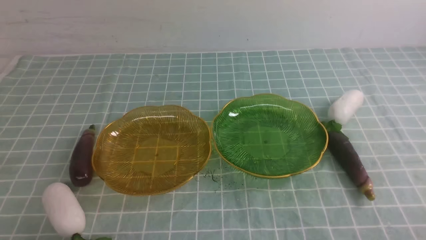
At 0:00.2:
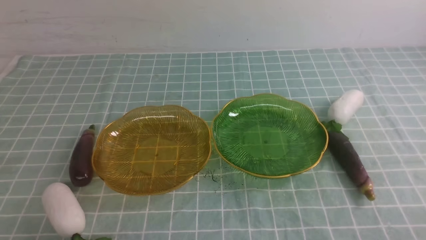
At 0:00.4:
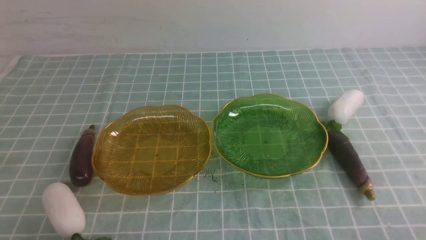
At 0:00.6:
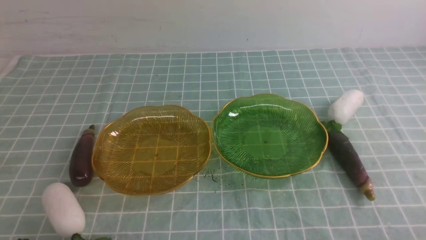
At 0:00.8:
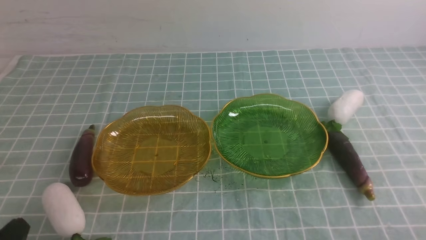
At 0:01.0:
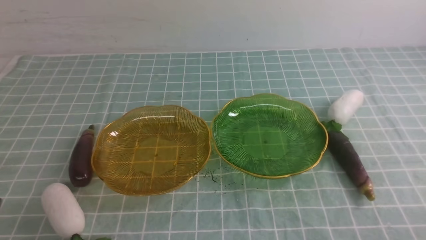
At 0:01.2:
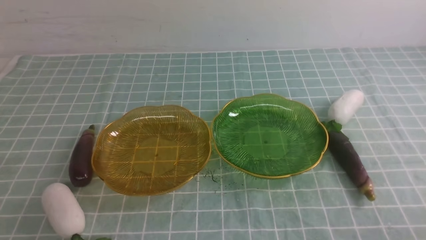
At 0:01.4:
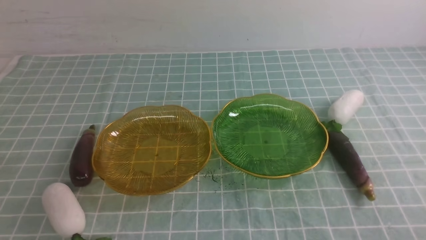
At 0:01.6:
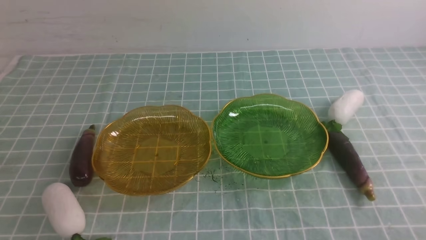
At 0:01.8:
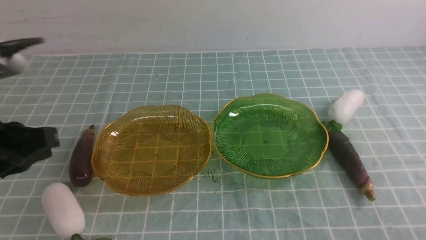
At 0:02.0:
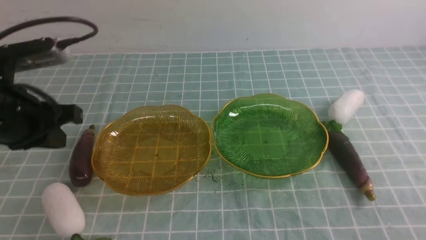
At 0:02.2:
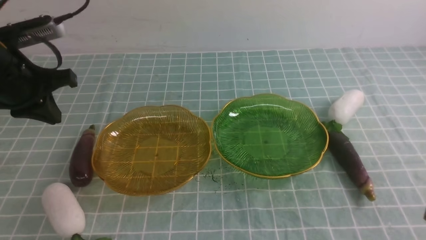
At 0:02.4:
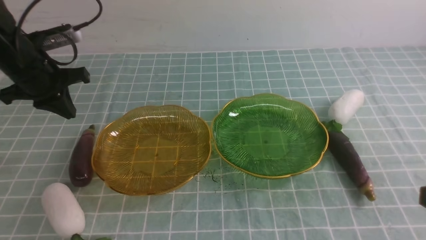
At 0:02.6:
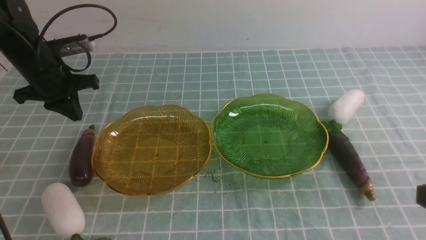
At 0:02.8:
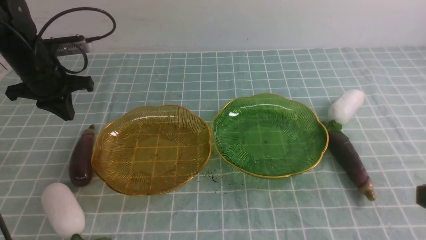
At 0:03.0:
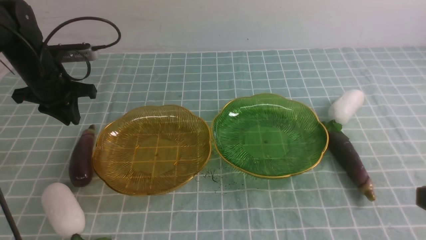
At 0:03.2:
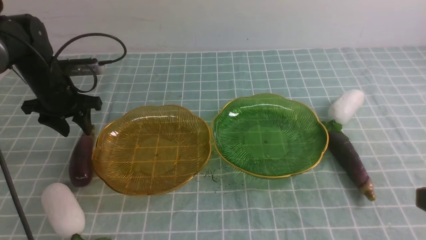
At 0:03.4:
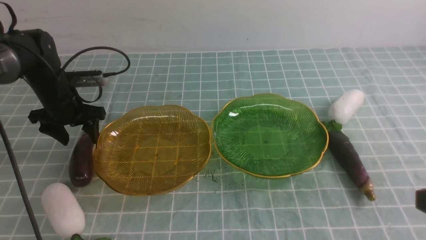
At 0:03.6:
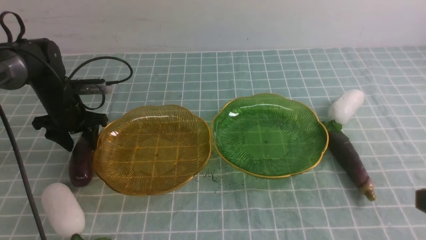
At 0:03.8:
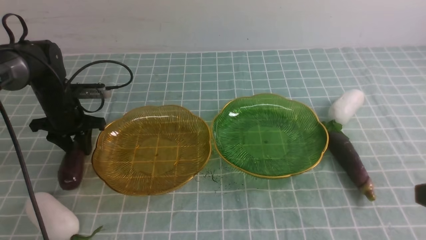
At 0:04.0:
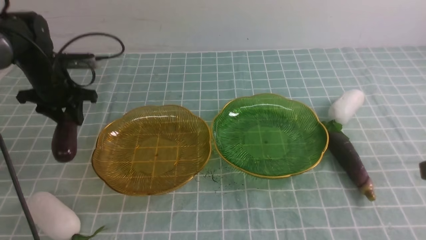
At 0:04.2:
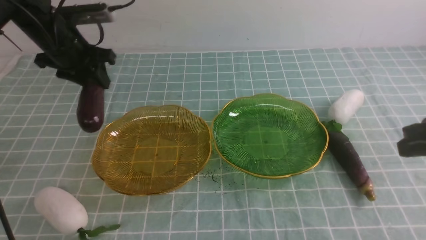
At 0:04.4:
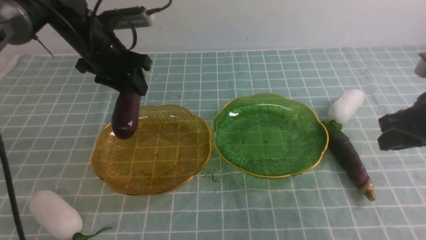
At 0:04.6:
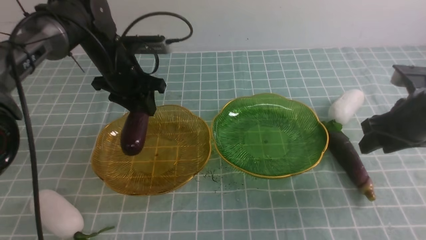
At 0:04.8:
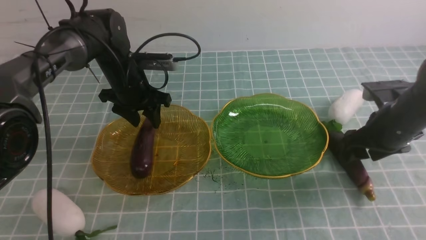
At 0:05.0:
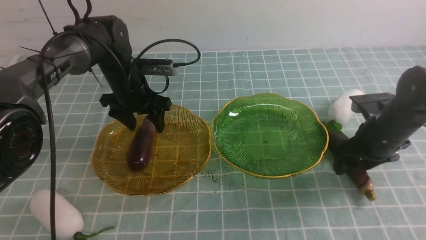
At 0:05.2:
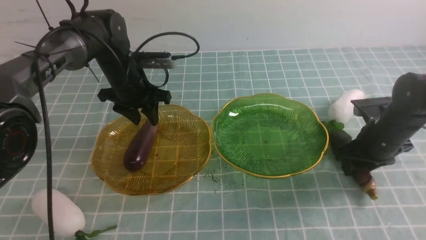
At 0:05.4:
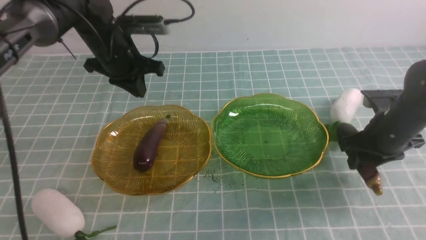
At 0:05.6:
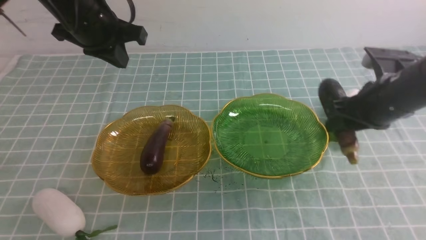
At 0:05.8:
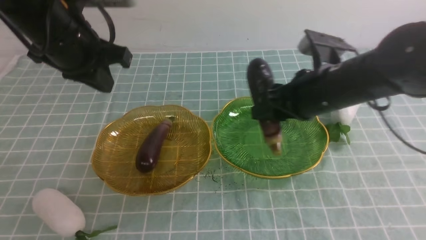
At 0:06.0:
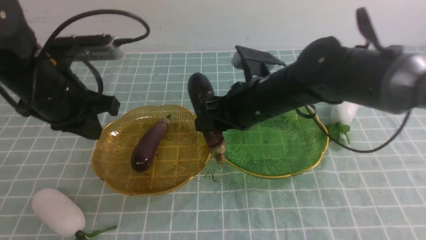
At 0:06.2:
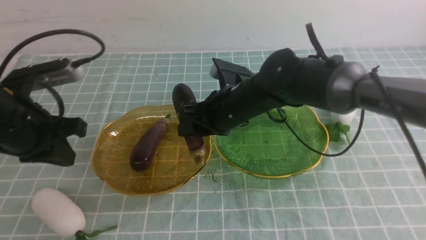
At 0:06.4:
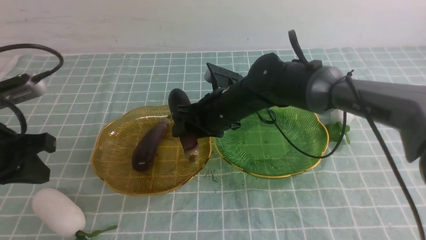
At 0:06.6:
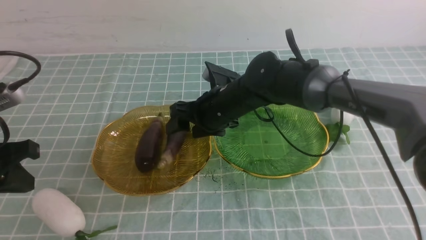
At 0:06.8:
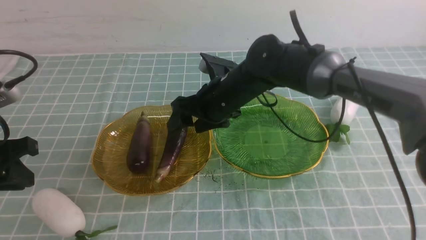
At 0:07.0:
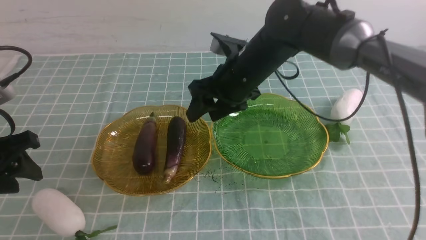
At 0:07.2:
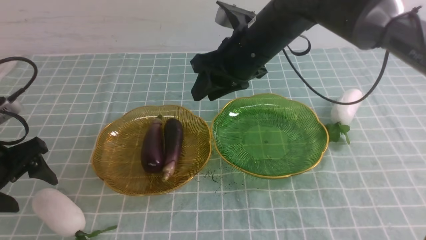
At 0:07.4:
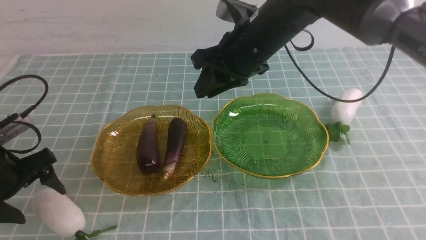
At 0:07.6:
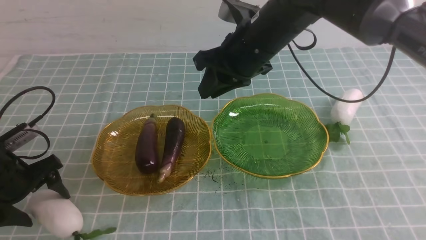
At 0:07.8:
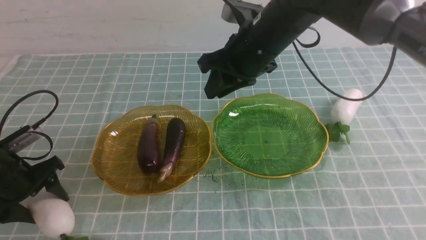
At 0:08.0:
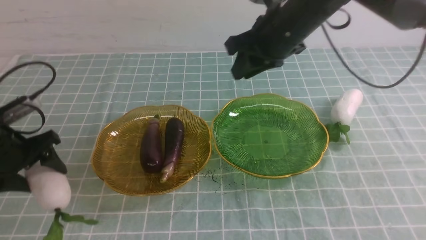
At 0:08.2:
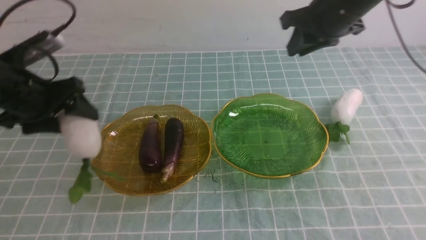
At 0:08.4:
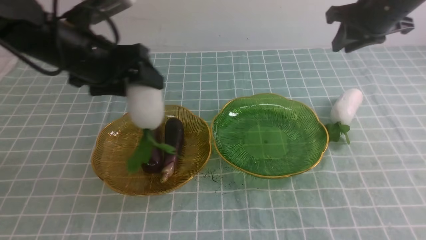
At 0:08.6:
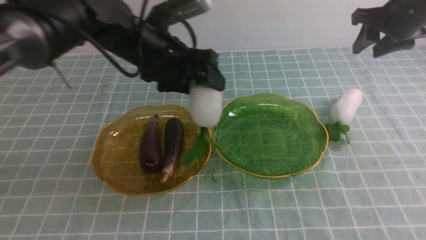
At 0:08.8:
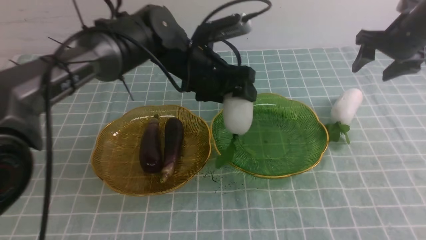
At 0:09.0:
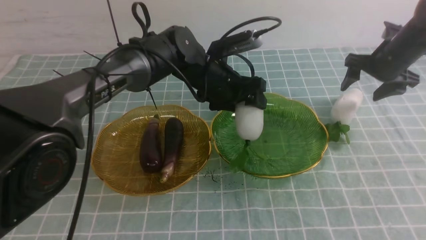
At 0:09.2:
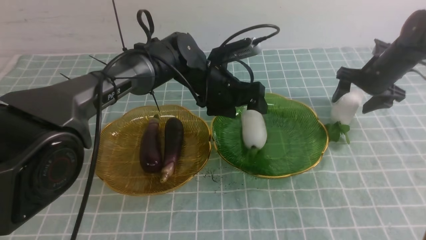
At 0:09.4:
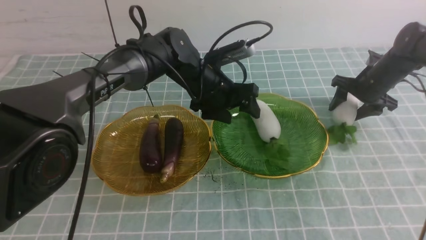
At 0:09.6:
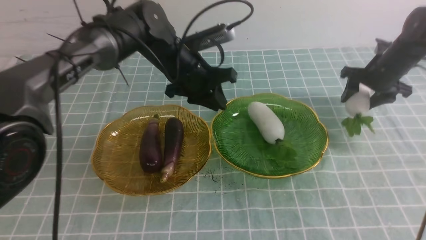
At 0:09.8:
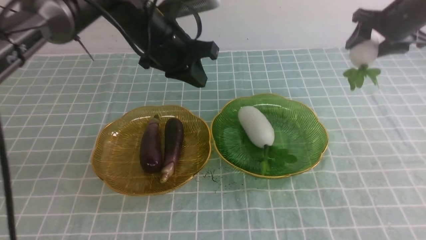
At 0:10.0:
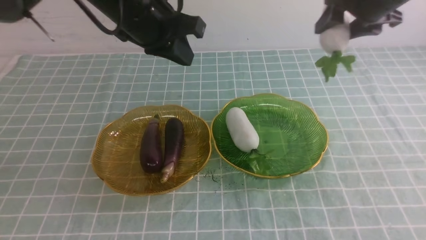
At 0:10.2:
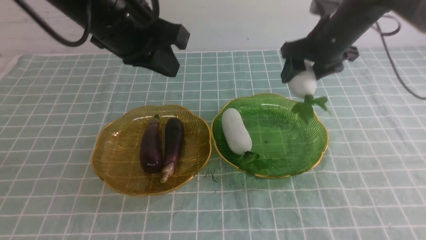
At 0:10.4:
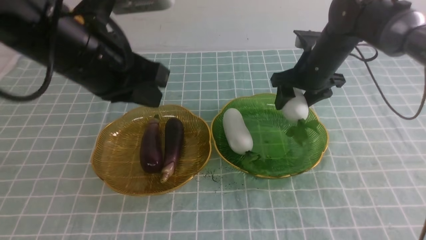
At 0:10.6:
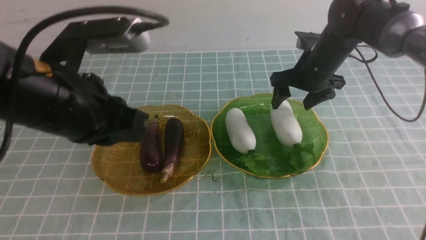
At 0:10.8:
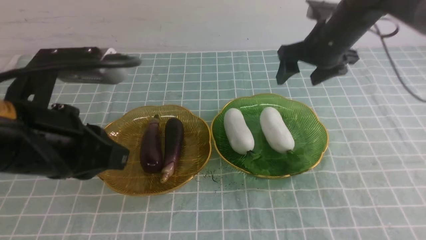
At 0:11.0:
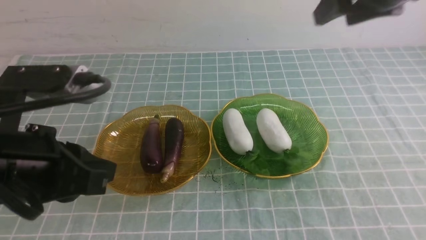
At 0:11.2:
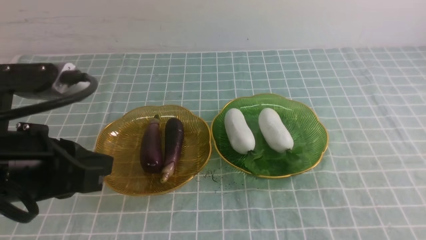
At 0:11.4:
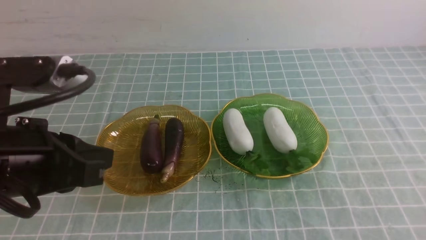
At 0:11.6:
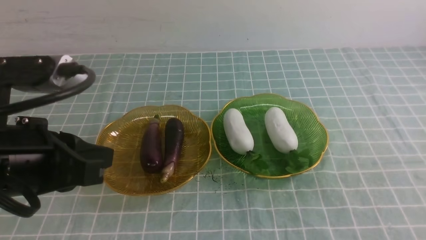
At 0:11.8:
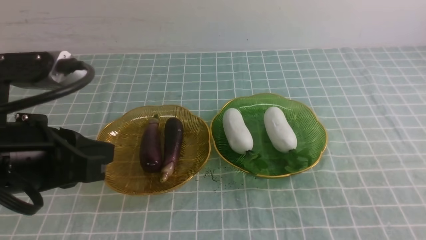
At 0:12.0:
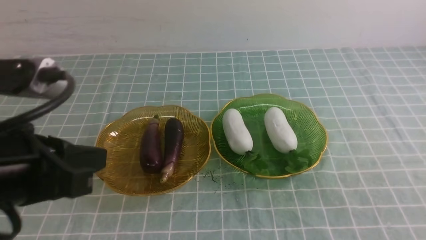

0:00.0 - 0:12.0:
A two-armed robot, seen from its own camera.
Step, 0:00.0 - 0:05.0: use the left arm to grab an eggplant and put it into the left plate.
Step, 0:05.2 - 0:06.8: use the right arm to grab an eggplant and put it into the left plate.
Step, 0:07.0 - 0:09.4: use the left arm to grab a radish and put it into the right plate.
Step, 0:09.6 - 0:10.6: use the right arm to grab a radish and put it into the right plate.
0:01.6 - 0:03.0: The left gripper is displaced forward by approximately 30 cm.
0:03.0 - 0:04.4: The right gripper moves forward, some 20 cm, while the left gripper heads to the right, covering roughly 10 cm.
0:04.4 - 0:06.0: The left gripper moves backward, some 15 cm, and closes up. Meanwhile the right gripper shifts about 25 cm to the left.
0:06.0 - 0:07.6: The left gripper goes roughly 15 cm downward and to the left, and opens its fingers, while the right gripper shifts about 10 cm upward.
0:07.6 - 0:09.0: The right gripper heads to the right, downward and forward, covering roughly 30 cm, and opens its fingers. Meanwhile the left gripper is displaced to the right and forward by approximately 35 cm.
0:09.0 - 0:10.4: The right gripper moves up and down over approximately 15 cm, changing direction 2 times, while the left gripper goes about 25 cm backward, upward and to the left, and closes.
0:10.4 - 0:12.0: The left gripper heads backward, covering some 15 cm; the right gripper travels backward by about 40 cm, and closes its fingers.

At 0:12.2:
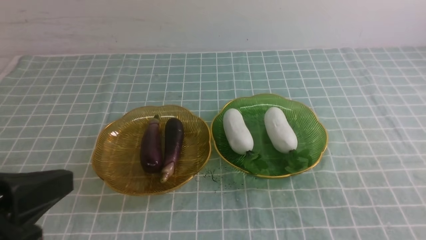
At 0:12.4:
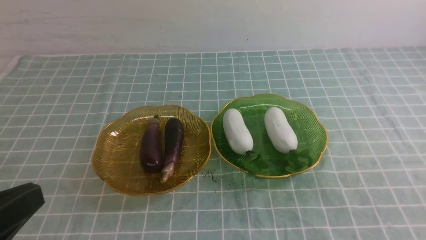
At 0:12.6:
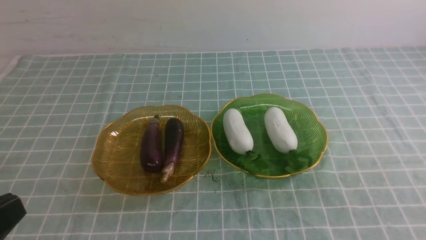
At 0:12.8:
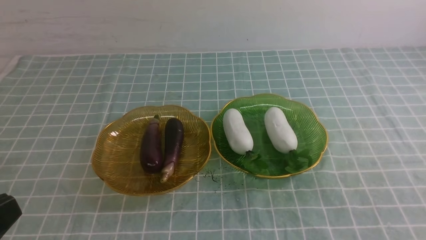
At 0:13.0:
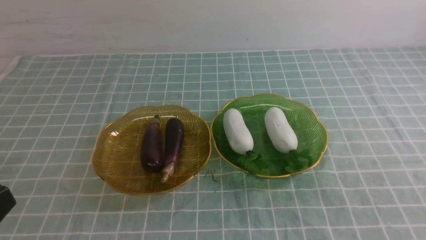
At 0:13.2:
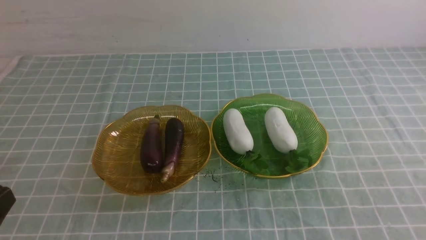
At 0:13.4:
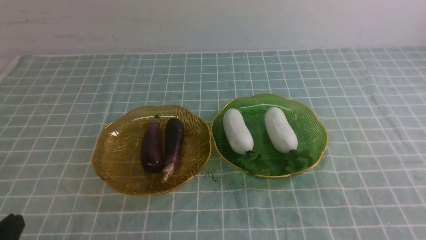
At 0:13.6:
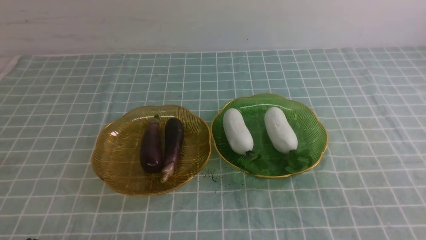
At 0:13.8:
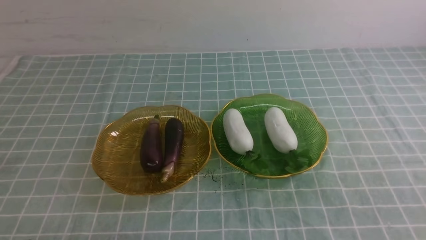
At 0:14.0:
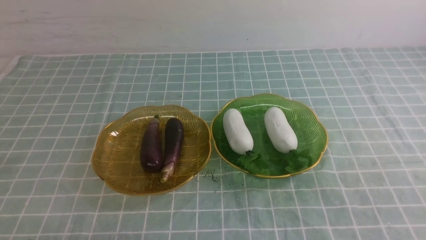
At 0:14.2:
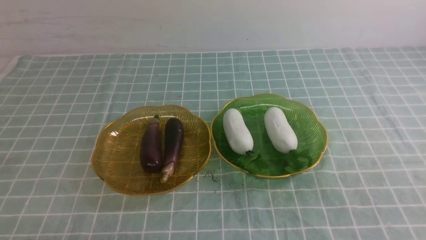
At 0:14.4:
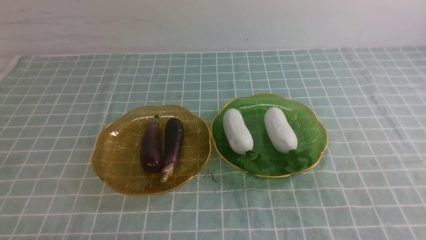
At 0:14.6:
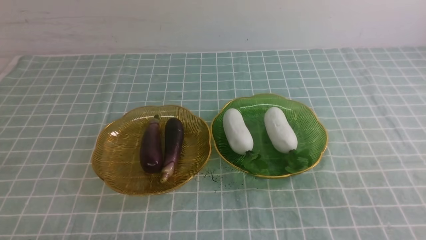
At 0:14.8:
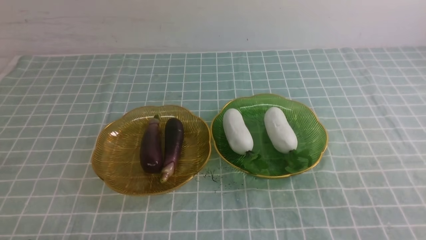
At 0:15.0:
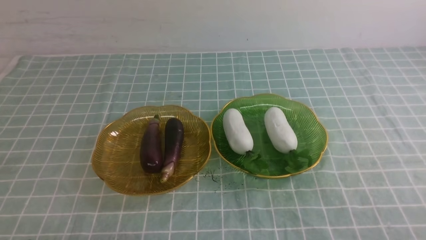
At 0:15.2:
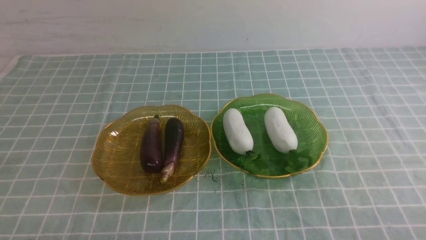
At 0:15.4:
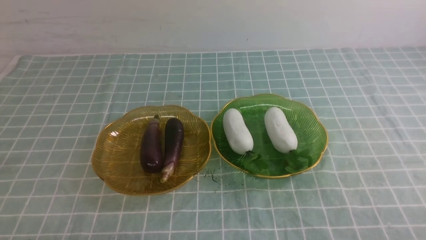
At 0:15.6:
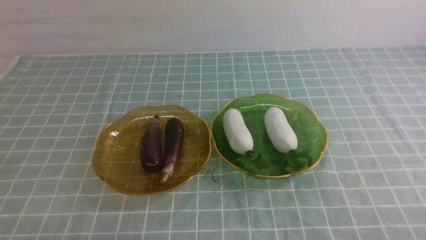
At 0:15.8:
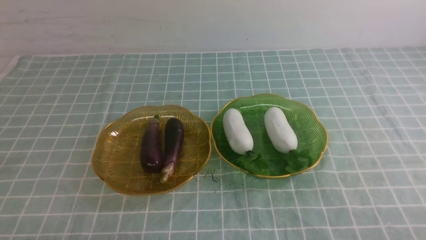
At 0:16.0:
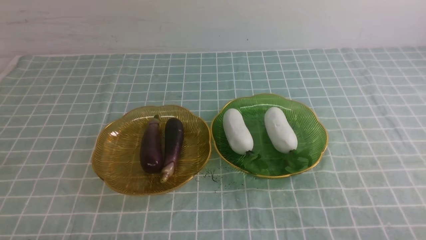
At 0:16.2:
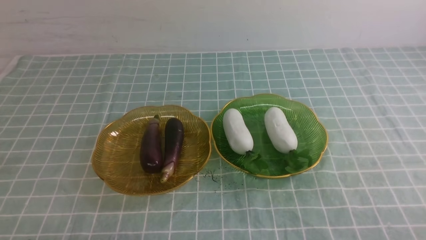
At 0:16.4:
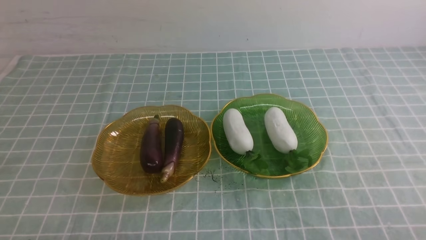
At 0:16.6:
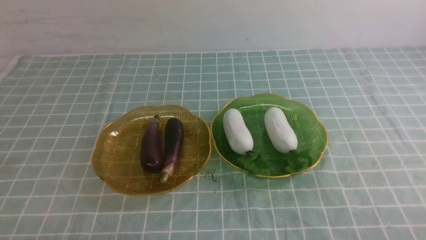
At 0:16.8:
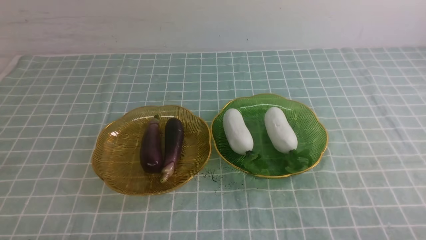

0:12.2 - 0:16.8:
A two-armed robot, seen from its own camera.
0:12.2 - 0:13.8: The left gripper goes about 15 cm downward.
0:15.2 - 0:16.8: Both grippers stay about where they are.
